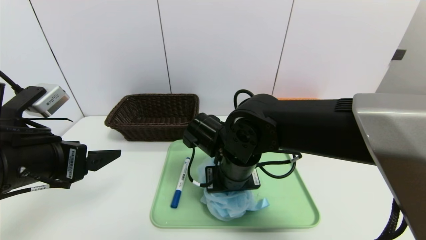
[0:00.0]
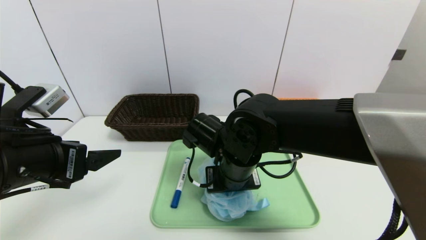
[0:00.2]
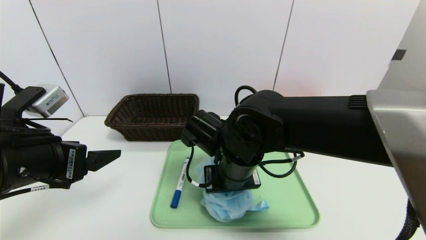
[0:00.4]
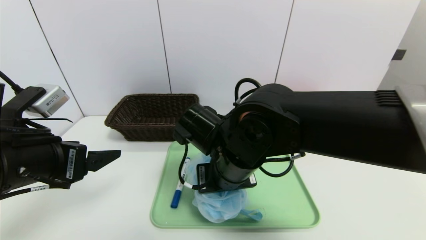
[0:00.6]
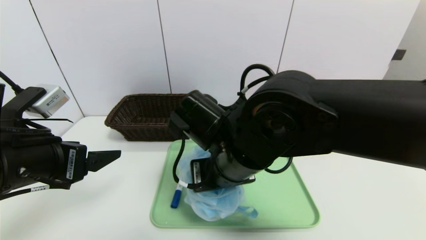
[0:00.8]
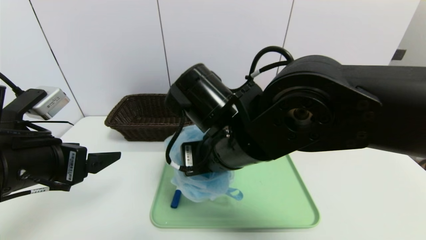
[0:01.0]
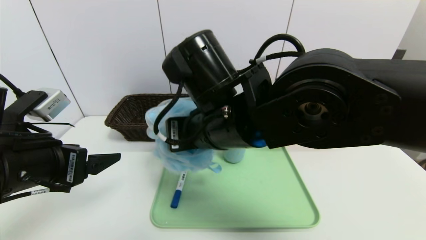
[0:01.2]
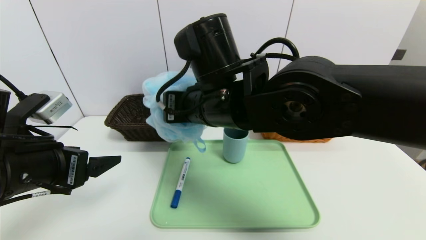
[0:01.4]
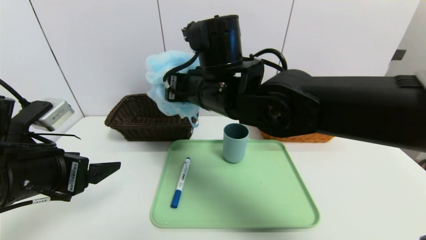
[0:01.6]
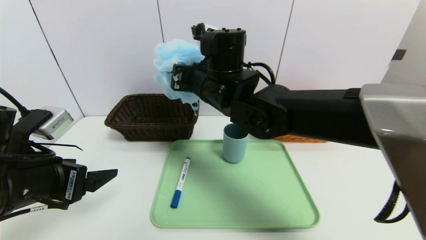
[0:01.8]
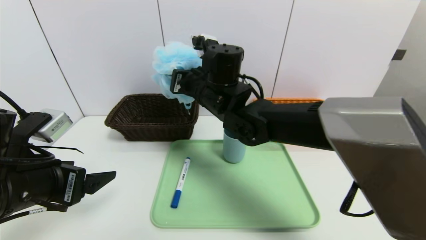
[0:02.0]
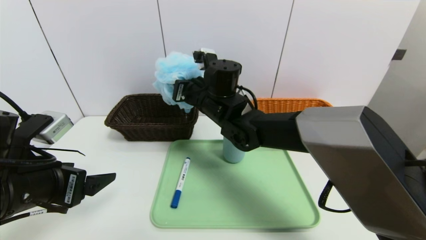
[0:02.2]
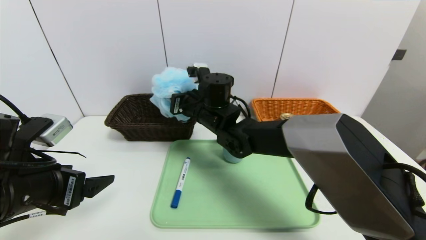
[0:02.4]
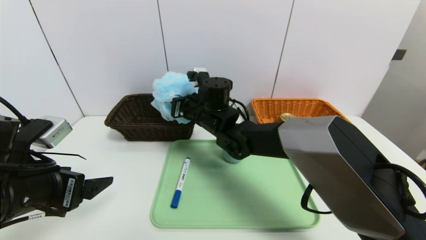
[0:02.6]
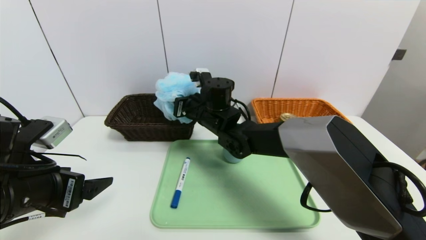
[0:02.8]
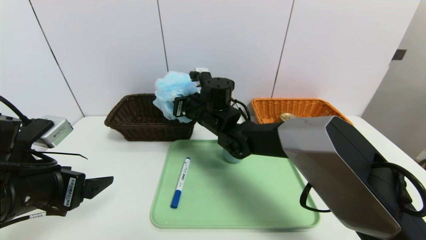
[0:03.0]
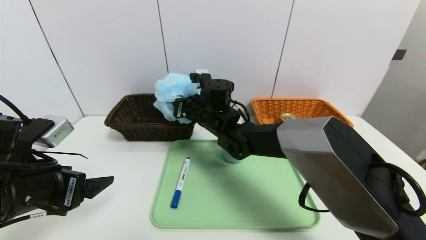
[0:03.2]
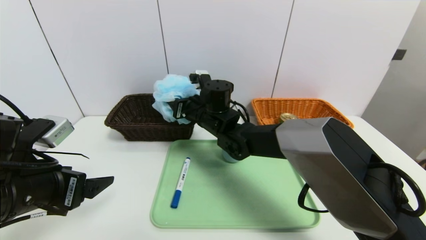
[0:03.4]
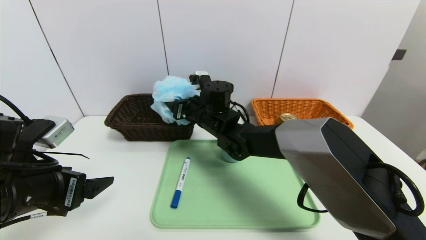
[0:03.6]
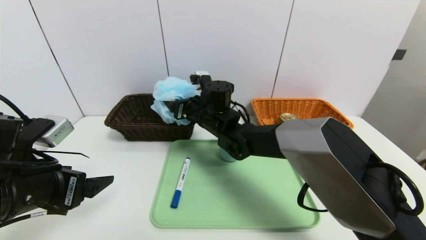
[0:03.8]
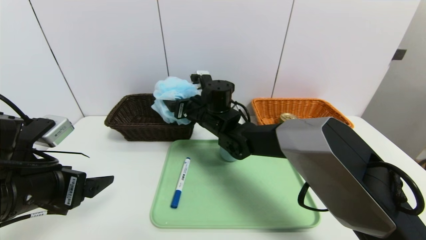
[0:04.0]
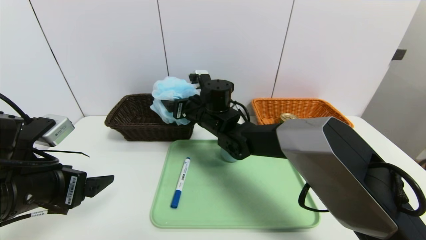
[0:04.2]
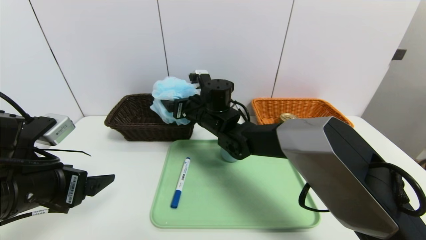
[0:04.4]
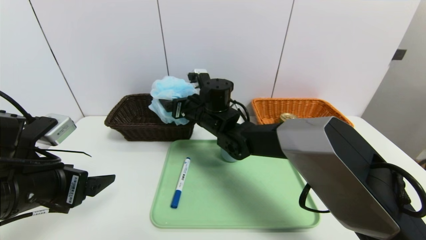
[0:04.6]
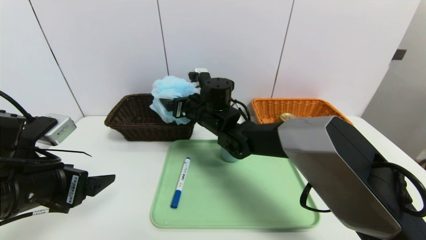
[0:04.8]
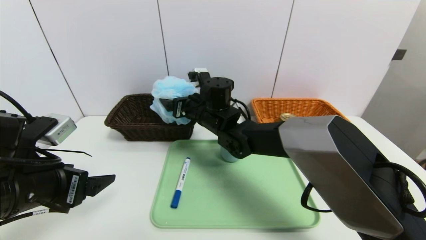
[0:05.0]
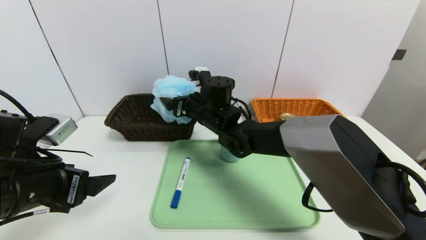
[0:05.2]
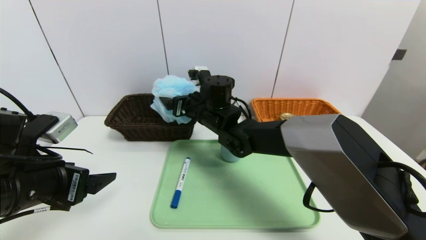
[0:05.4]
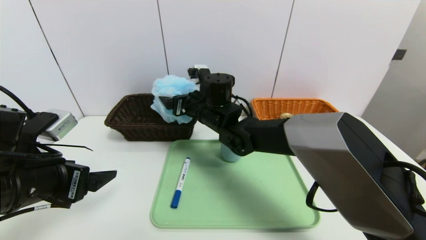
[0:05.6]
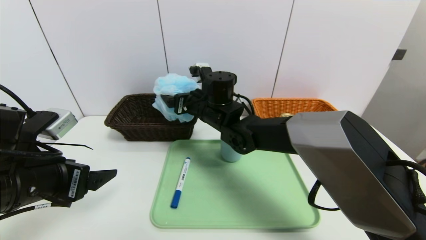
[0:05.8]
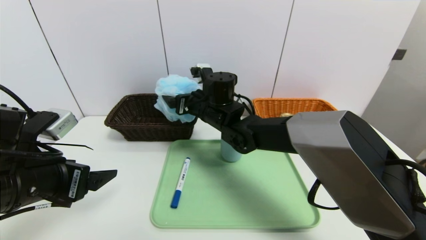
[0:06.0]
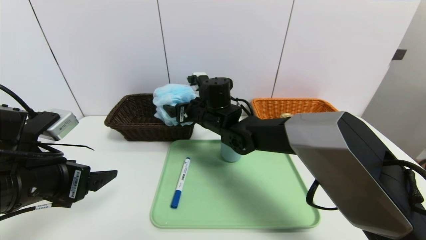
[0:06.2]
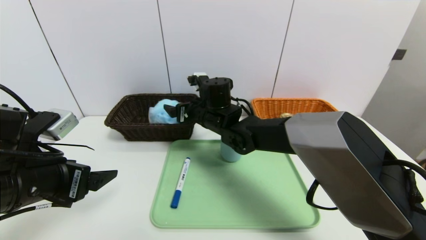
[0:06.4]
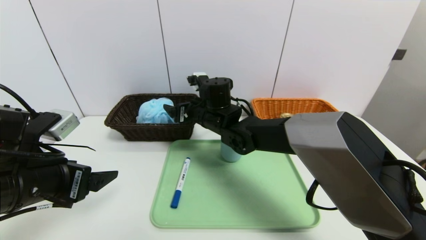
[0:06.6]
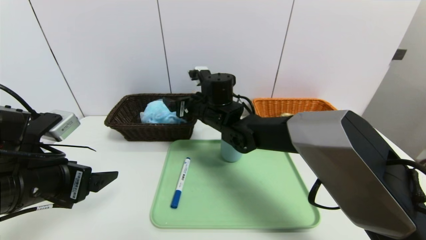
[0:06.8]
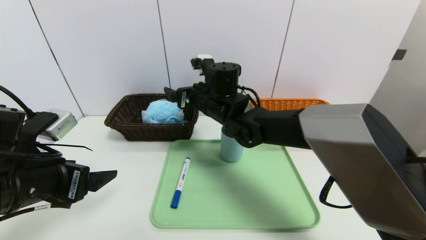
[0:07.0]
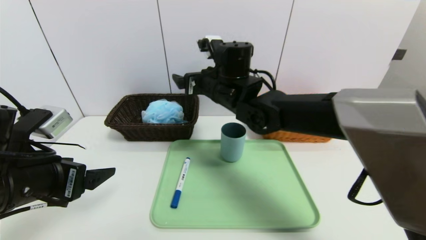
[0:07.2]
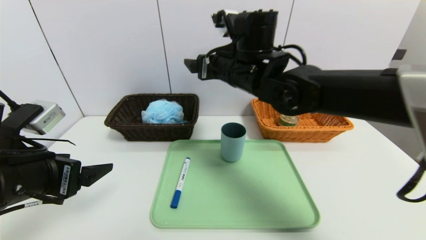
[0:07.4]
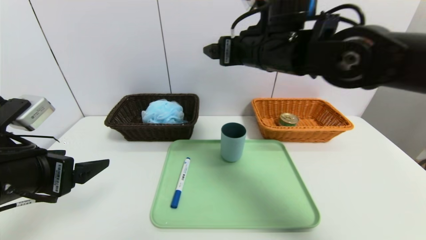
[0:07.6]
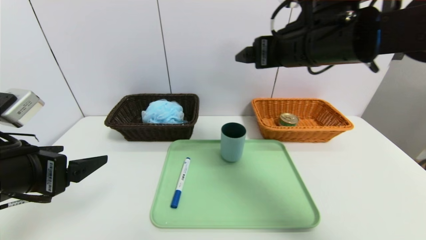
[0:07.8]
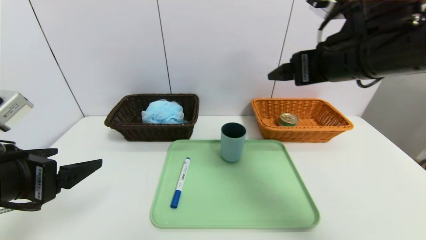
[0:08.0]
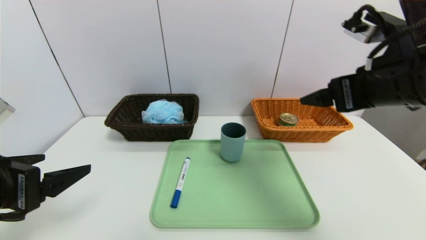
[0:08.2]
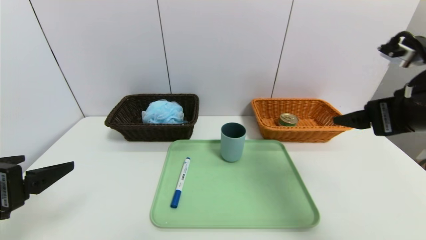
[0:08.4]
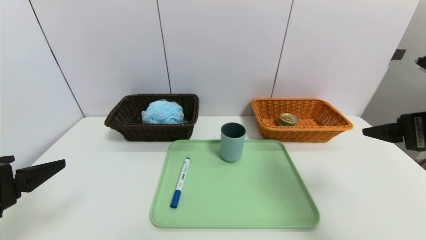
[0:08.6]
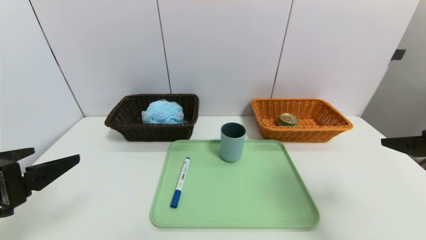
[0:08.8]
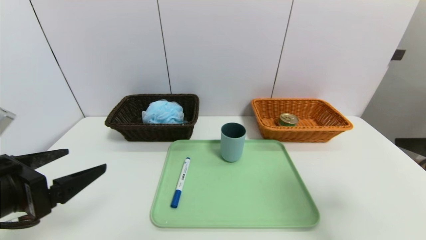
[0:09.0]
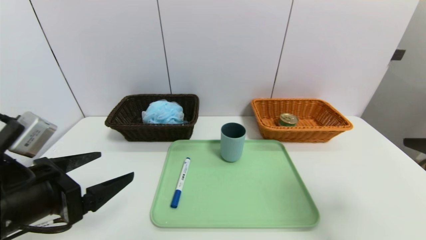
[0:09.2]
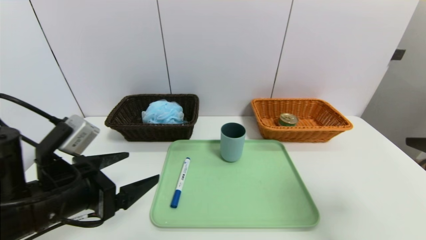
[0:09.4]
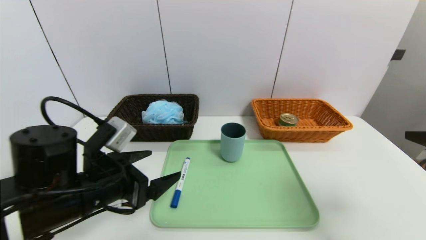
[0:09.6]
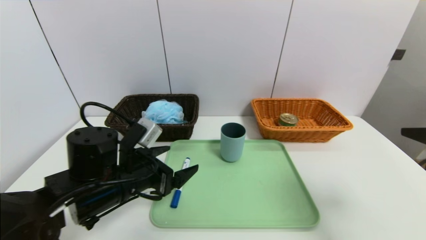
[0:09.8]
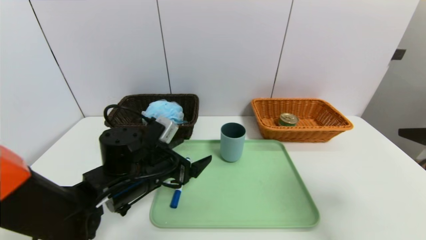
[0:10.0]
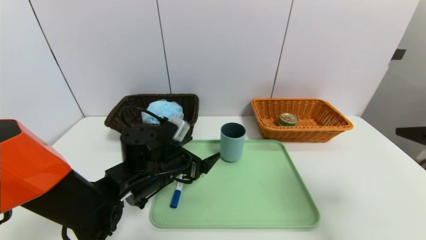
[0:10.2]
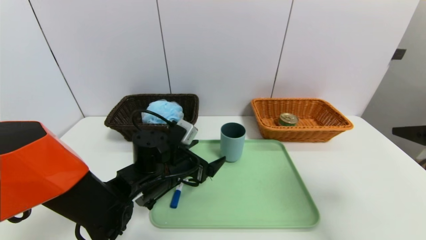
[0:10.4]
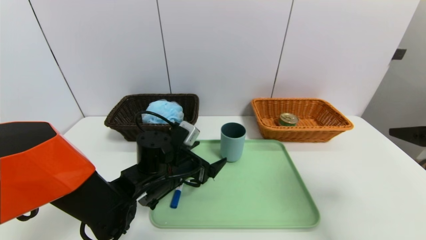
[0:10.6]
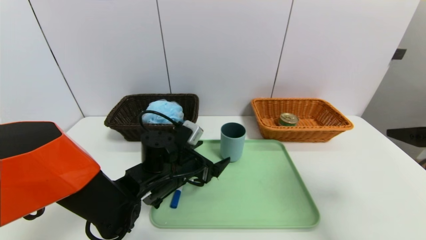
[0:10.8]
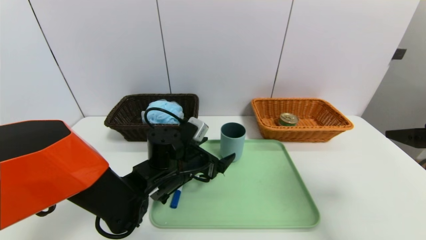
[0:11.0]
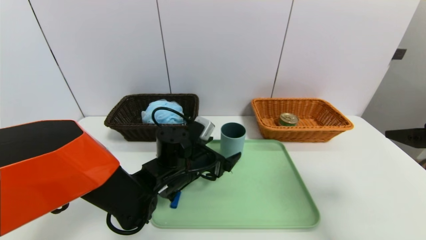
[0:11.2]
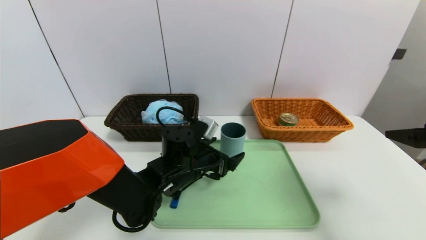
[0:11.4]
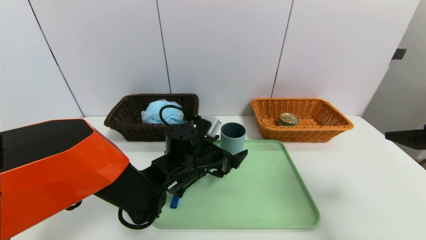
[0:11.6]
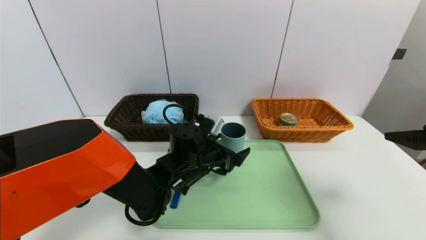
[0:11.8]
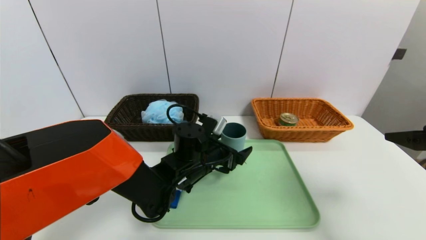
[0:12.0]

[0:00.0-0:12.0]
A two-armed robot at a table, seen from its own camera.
Task of the whole recording: place the food in the right basket with the right gripper, and place the non food items in the left basket with the left gripper.
0:00.0 to 0:01.6: The right gripper travels upward by some 10 cm.
0:01.6 to 0:03.0: The right gripper goes some 15 cm downward and forward.
0:03.0 to 0:04.4: The right gripper opens up.
0:04.4 to 0:06.0: The grippers make only small movements.
0:06.0 to 0:07.6: The right gripper moves upward, to the right and backward, approximately 20 cm.
0:07.6 to 0:09.0: The right gripper shifts some 30 cm to the right and backward.
0:09.0 to 0:10.4: The left gripper shifts roughly 25 cm to the right, forward and downward.
0:10.4 to 0:12.0: The left gripper goes roughly 5 cm to the right.

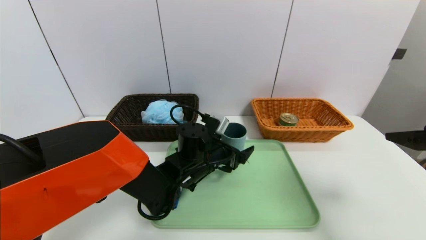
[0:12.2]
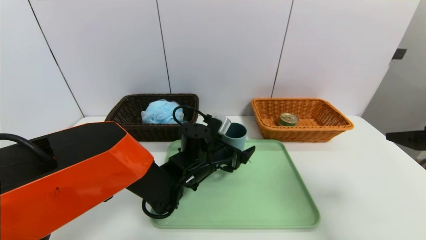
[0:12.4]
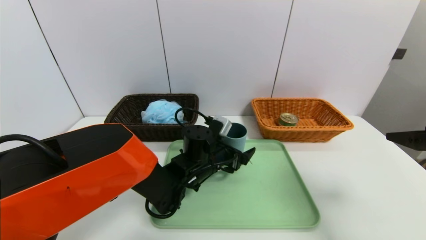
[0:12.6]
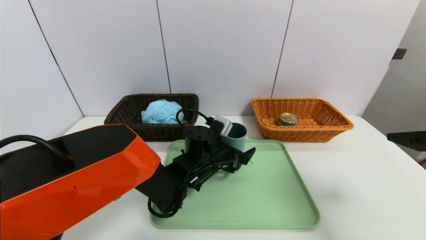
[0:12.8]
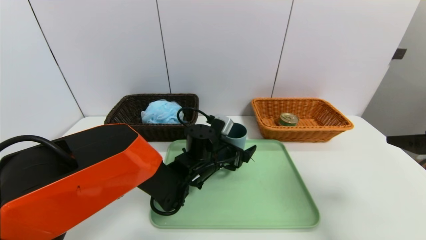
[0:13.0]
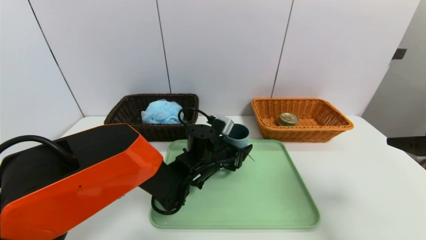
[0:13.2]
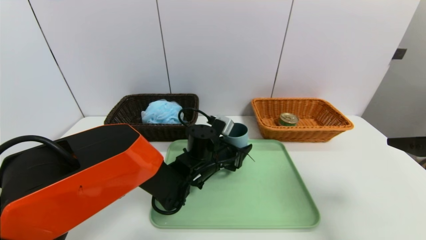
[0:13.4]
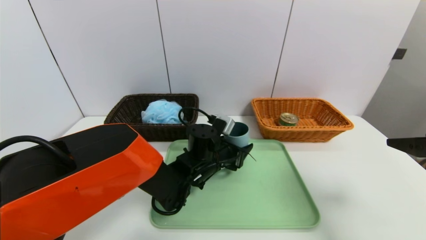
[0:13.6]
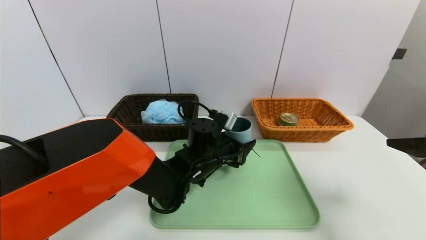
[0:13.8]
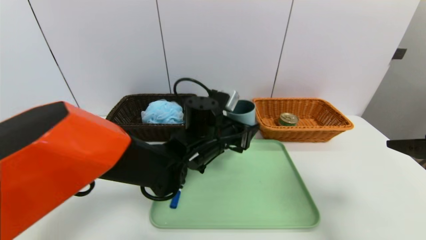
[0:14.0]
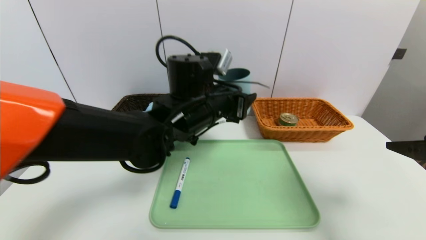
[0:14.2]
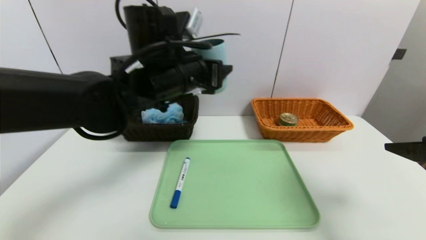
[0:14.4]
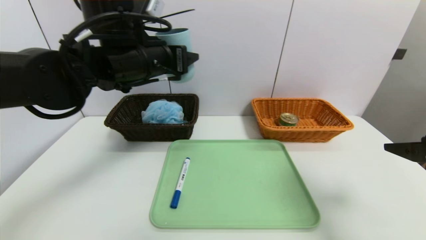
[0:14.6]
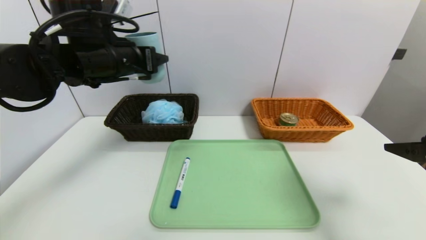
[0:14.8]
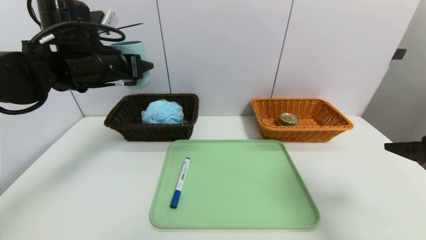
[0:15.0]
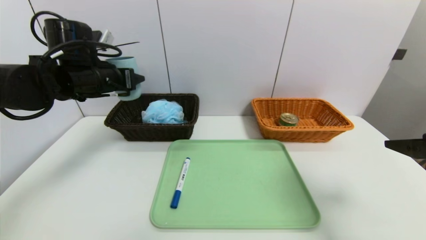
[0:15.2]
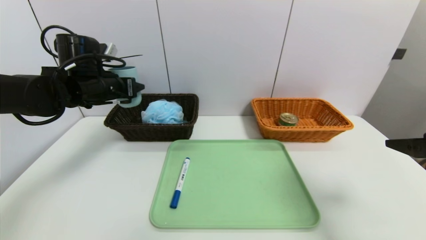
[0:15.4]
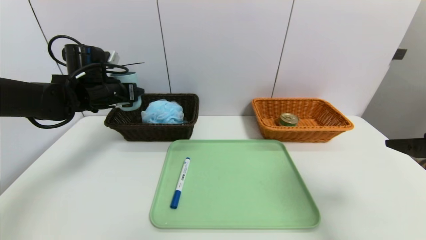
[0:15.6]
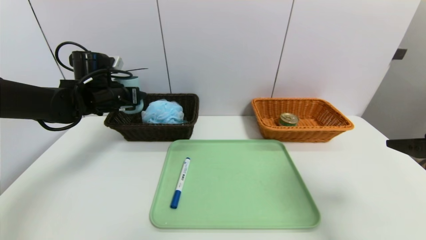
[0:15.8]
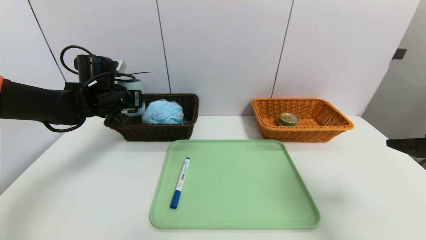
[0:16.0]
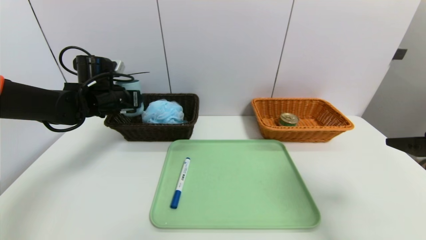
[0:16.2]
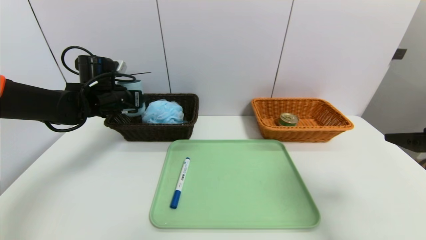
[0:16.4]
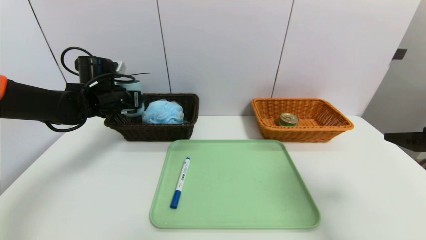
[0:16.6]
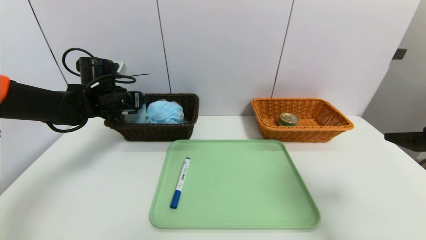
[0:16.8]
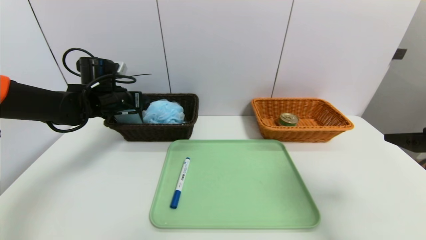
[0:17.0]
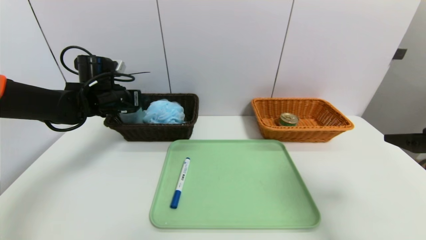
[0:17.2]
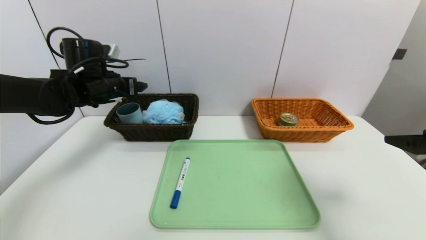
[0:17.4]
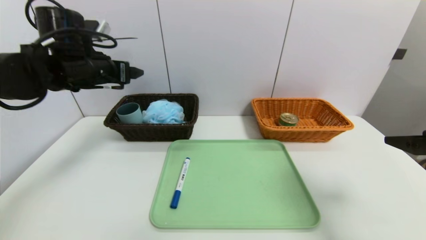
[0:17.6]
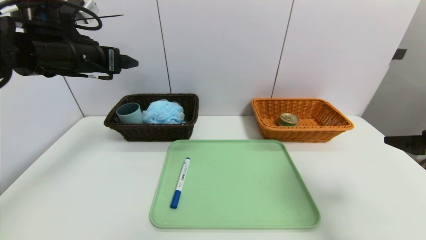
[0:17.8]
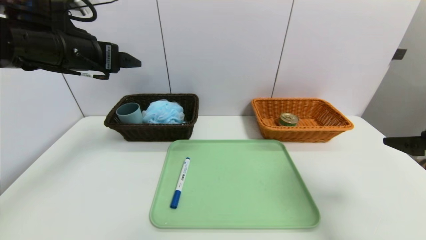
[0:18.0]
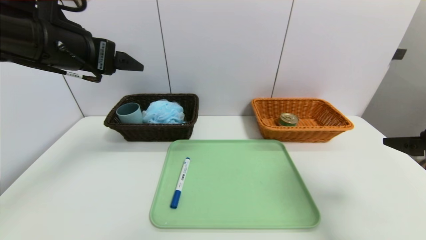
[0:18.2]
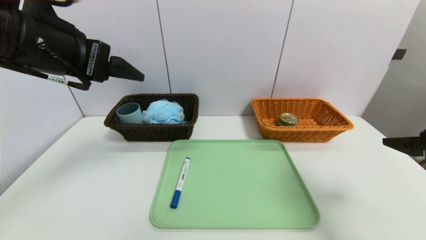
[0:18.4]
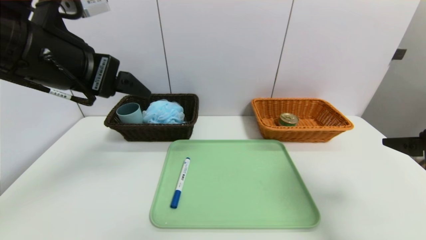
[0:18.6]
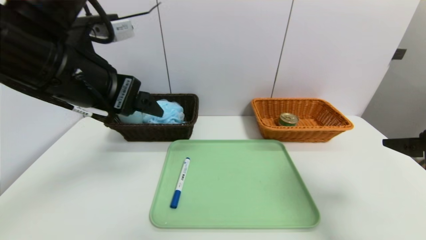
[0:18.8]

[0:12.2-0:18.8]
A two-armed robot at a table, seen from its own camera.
Task of the whole recording: place the food in the right basket with the right gripper, and place the non food items in the left basket with the left gripper.
Step, 0:12.2 to 0:17.2: Grasp the blue cup and put it in the left basket.
0:12.2 to 0:13.8: The grippers stay close to where they were, moving slightly.
0:13.8 to 0:15.4: The left gripper heads to the left and upward, covering some 30 cm.
0:15.4 to 0:17.2: The grippers move only a little.
0:17.2 to 0:18.8: The left gripper moves backward, upward and to the right, about 25 cm.
